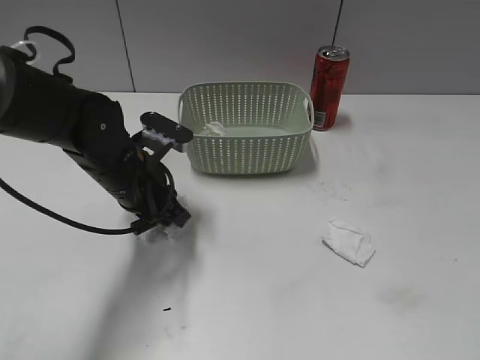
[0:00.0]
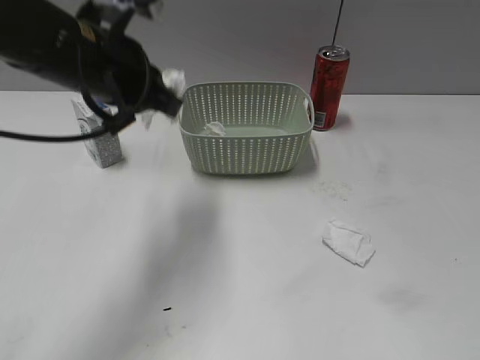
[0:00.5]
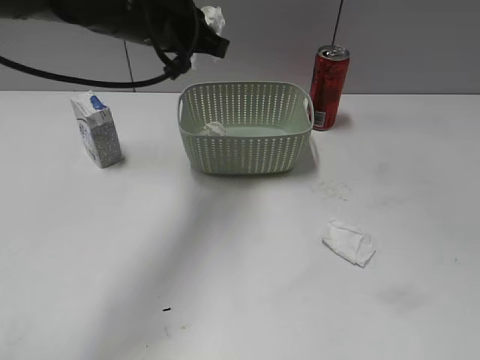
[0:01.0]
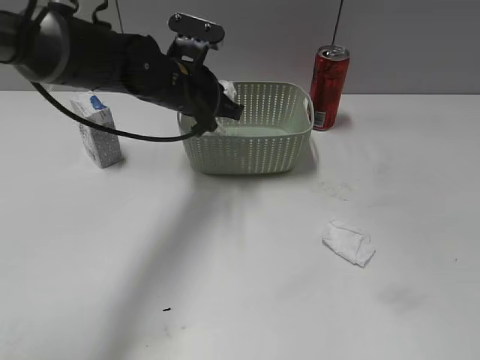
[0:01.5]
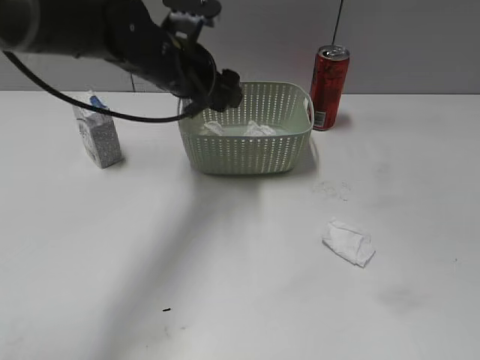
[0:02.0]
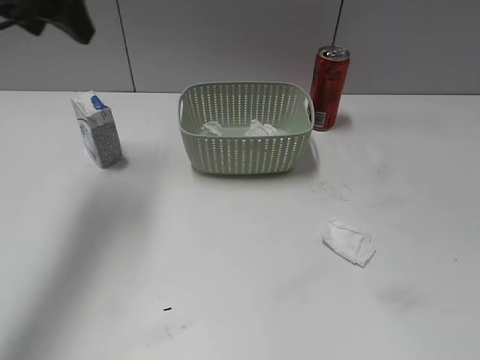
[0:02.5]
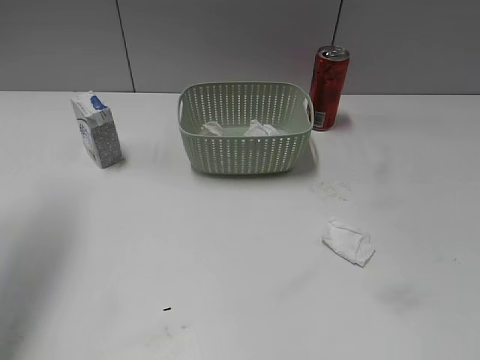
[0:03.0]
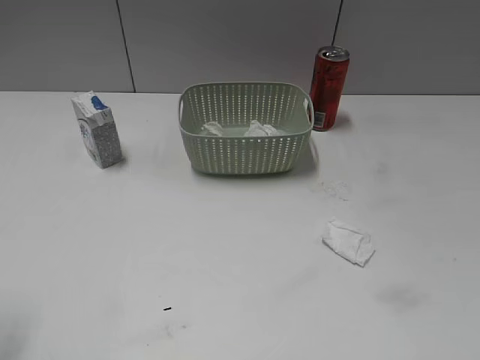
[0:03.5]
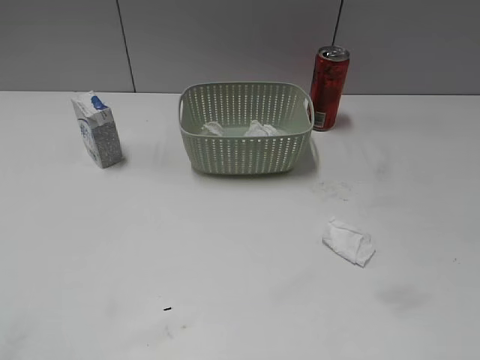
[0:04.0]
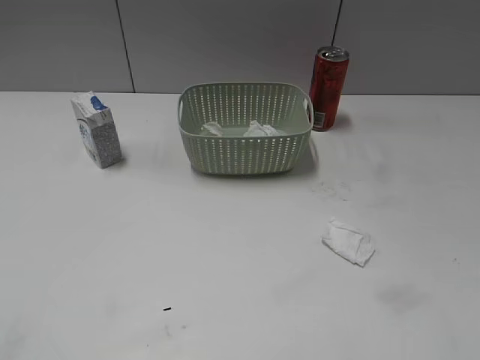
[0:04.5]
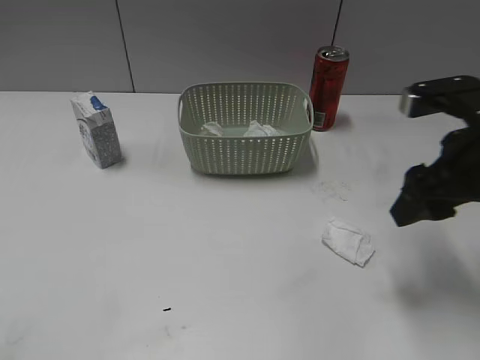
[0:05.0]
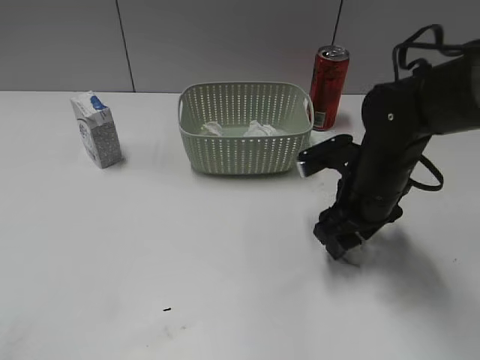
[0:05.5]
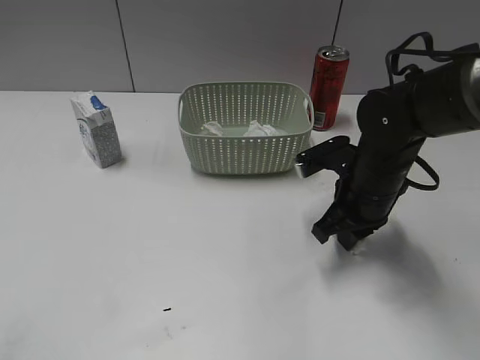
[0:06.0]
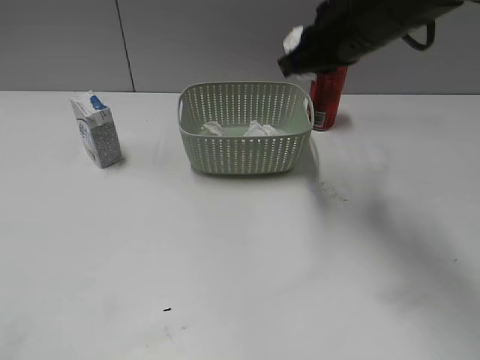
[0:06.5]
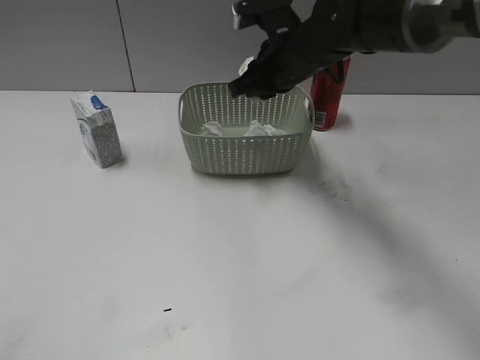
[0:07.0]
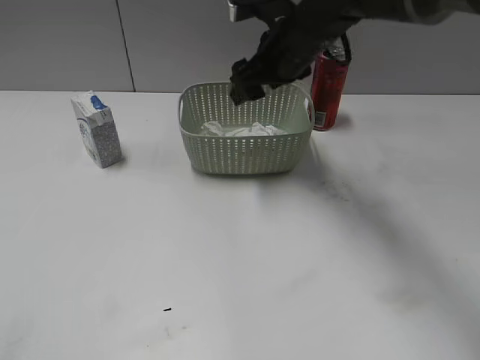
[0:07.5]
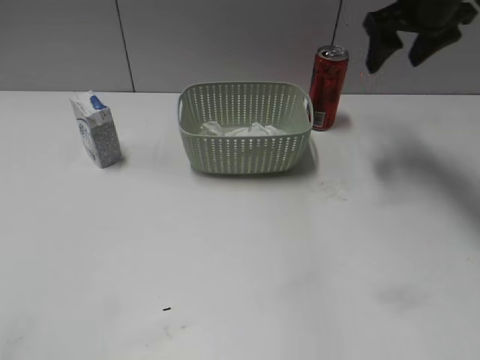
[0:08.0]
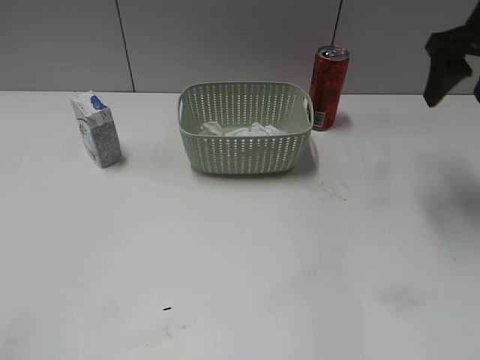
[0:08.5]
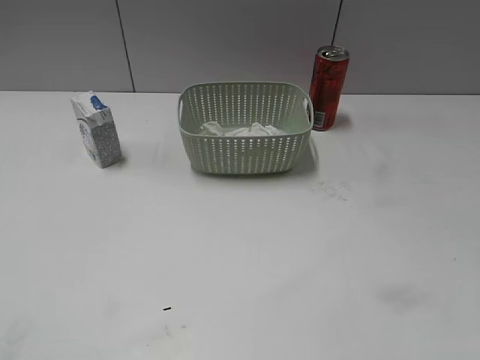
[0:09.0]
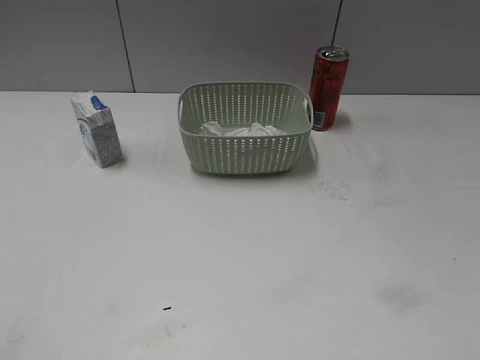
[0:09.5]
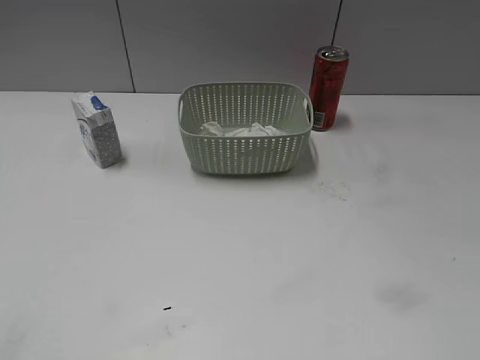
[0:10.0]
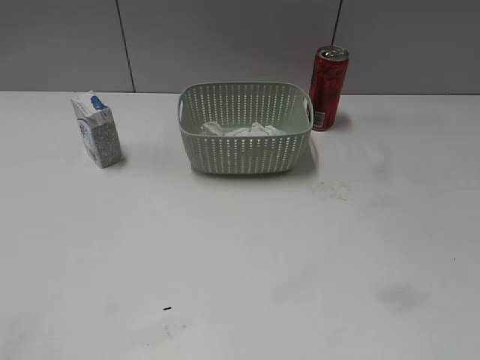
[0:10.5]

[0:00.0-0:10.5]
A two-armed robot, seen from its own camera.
Step, 0:00.5 to 0:02.0: Place the waste paper in the basket with left gripper.
Step, 0:02.5 to 0:06.0: Grasp the waste paper with right gripper.
Step, 0:06.5 to 0:07.5: Place the waste paper in the basket with right gripper.
0:00.0 to 0:02.0: The left gripper is displaced upward and forward by about 10 cm, and opens up.
0:02.0 to 0:04.0: The left gripper goes about 40 cm backward and to the left.
0:04.0 to 0:06.5: The right gripper heads forward and to the left, covering approximately 40 cm, and closes.
0:06.5 to 0:08.5: The right gripper heads to the right, covering roughly 15 cm, and opens.
0:08.5 to 0:10.5: The right gripper travels backward by some 40 cm.

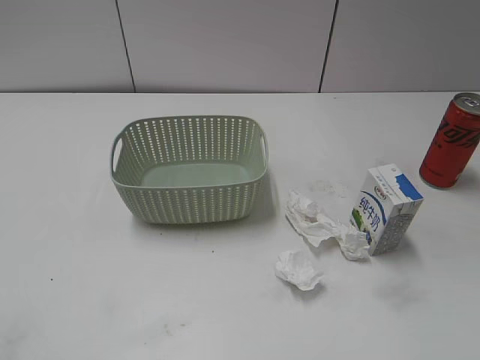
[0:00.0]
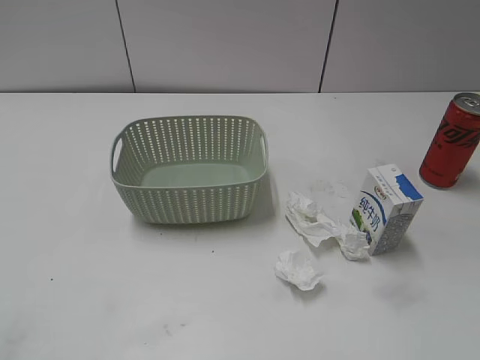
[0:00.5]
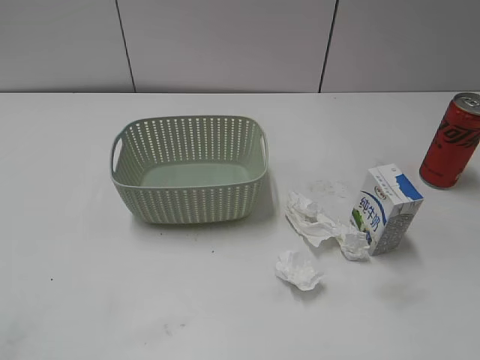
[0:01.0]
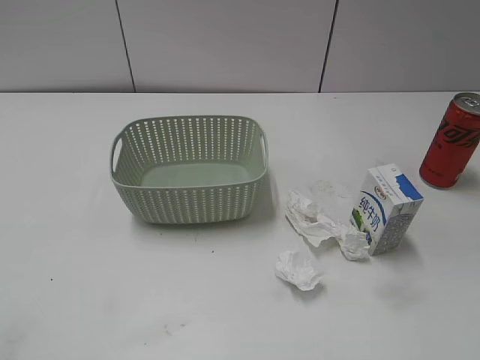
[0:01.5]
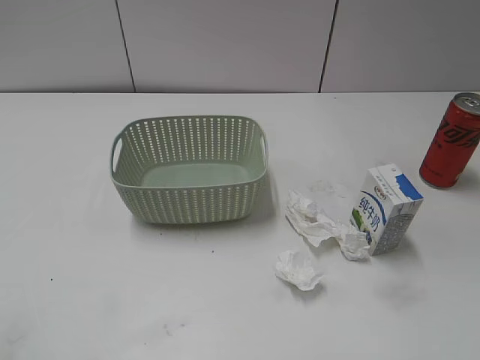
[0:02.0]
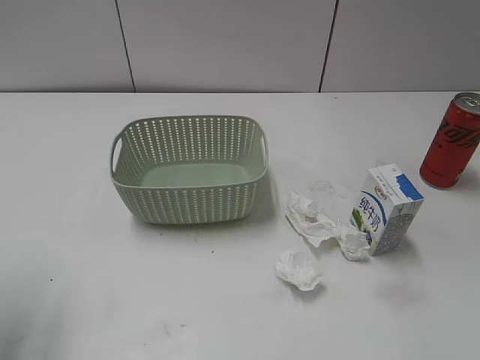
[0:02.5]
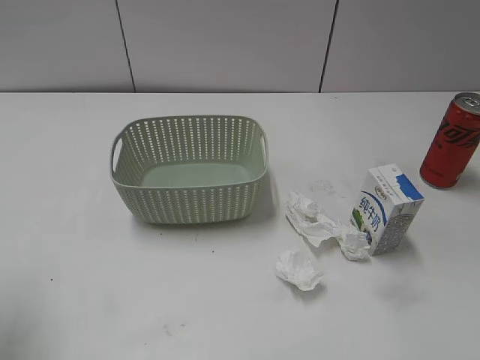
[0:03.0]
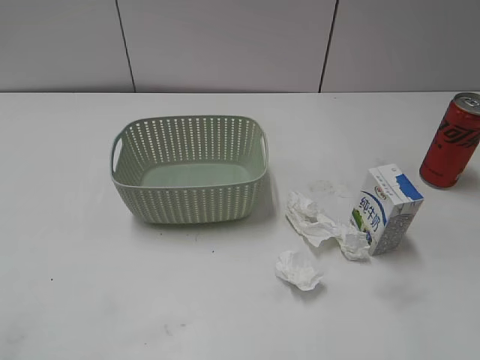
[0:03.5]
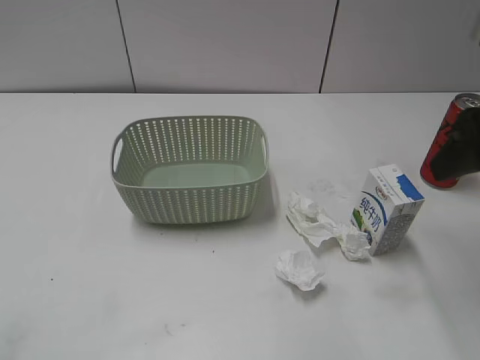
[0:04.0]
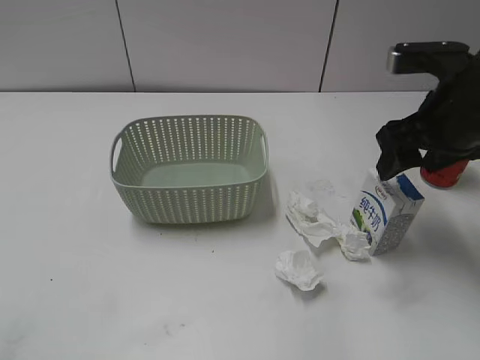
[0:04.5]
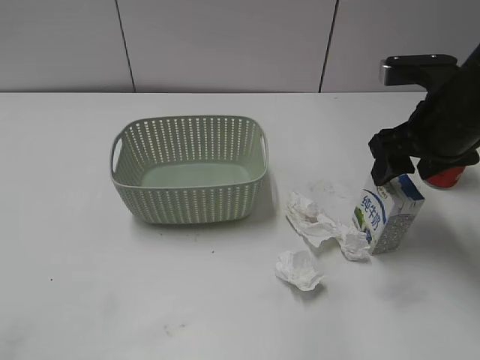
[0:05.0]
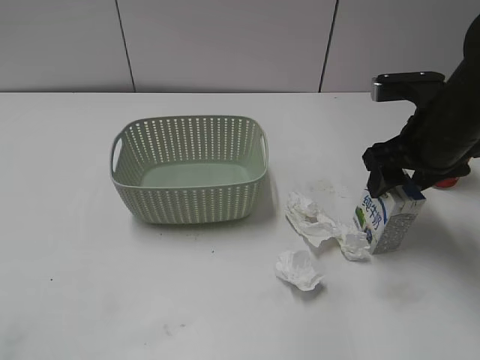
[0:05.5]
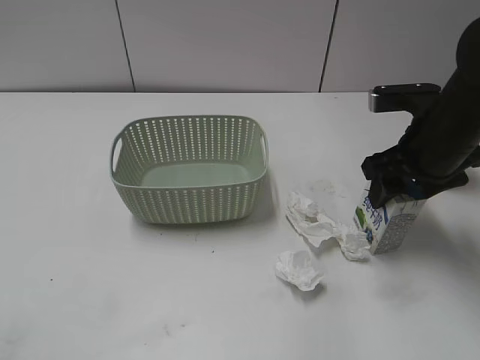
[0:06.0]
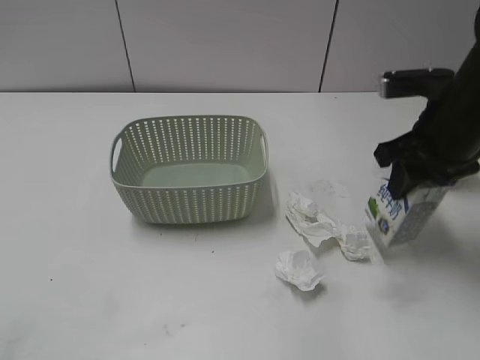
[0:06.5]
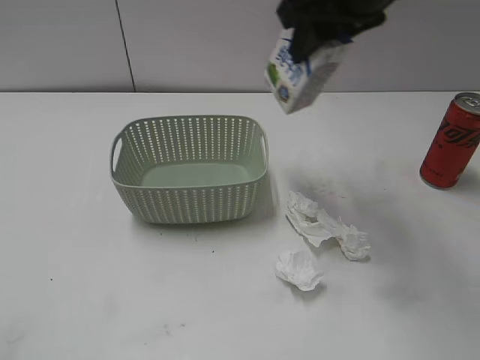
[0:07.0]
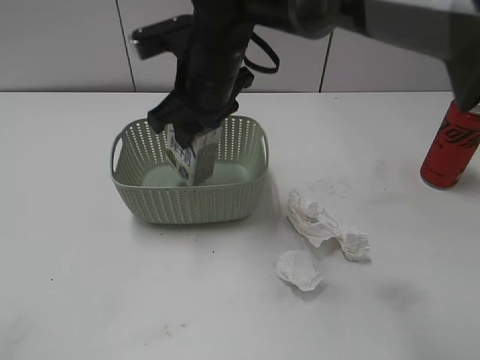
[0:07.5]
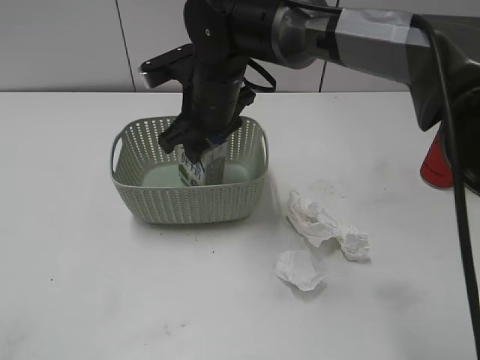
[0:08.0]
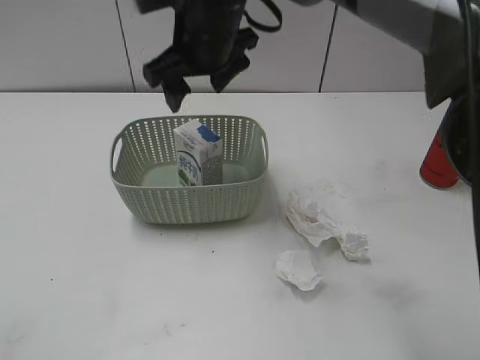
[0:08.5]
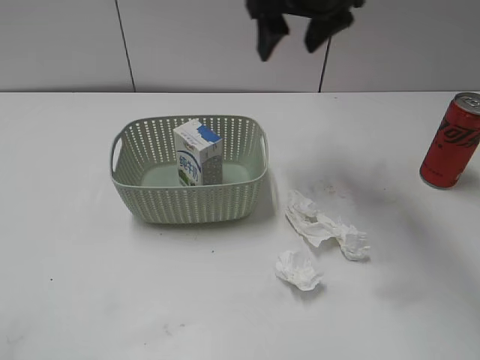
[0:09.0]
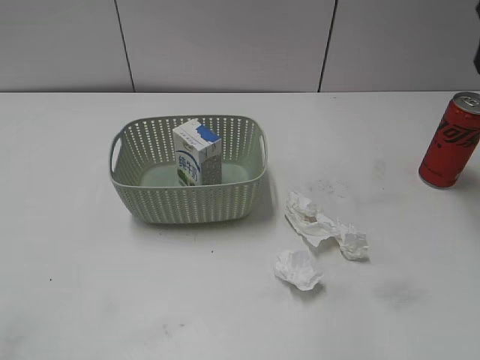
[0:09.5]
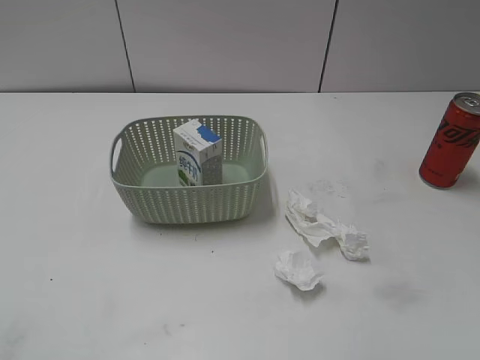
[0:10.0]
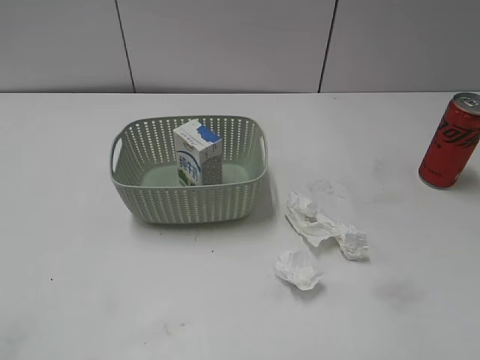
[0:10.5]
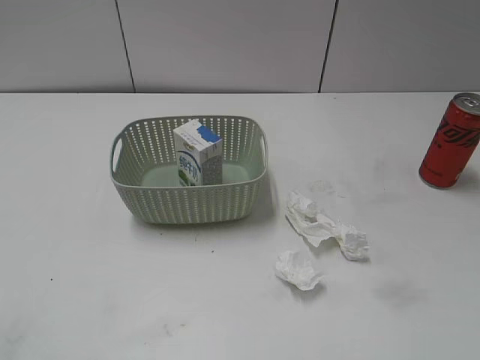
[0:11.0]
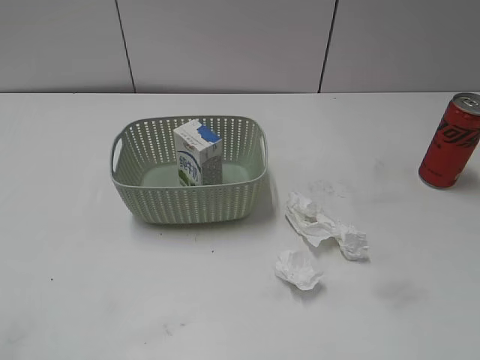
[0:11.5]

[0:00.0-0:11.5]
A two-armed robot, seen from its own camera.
Step, 0:04.0 to 0:06.0: Grasp the milk with right gripper.
Step, 0:06.5 to 0:08.5: Place the milk in the basket with right gripper.
0:02.0 to 0:04.0: The right gripper shifts approximately 25 cm forward.
0:04.0 to 0:06.0: The right gripper shifts roughly 15 cm downward and forward.
0:06.0 to 0:07.5: The right gripper heads to the left, covering roughly 25 cm, and closes up.
0:07.5 to 0:09.5: The right gripper heads to the right, covering roughly 30 cm, and opens its fingers.

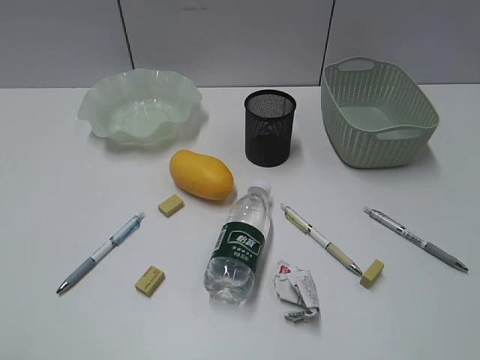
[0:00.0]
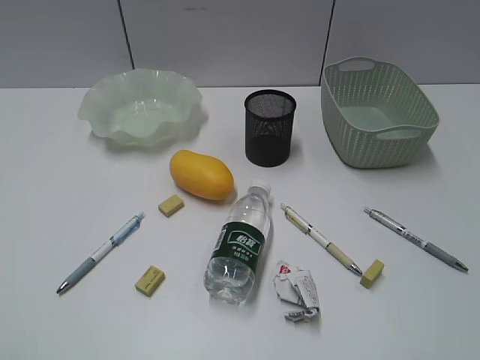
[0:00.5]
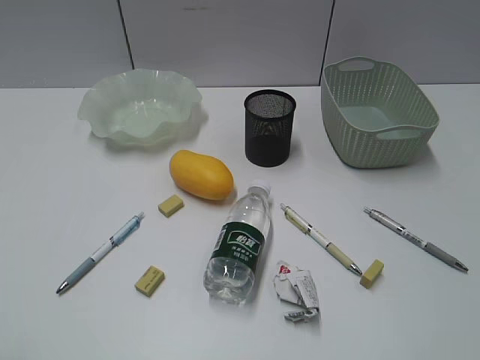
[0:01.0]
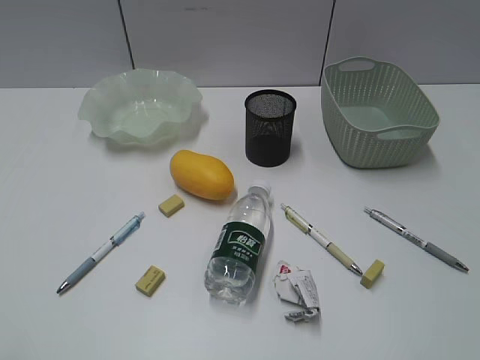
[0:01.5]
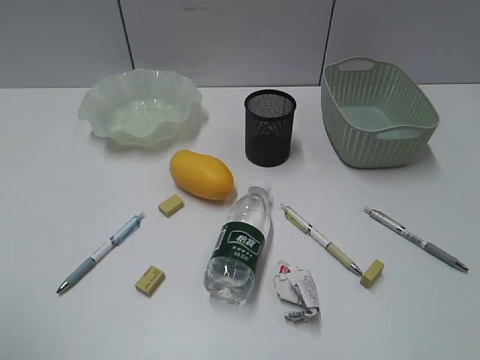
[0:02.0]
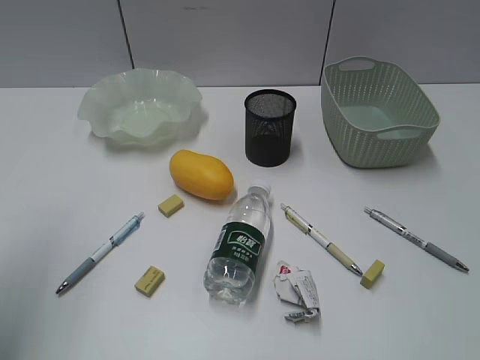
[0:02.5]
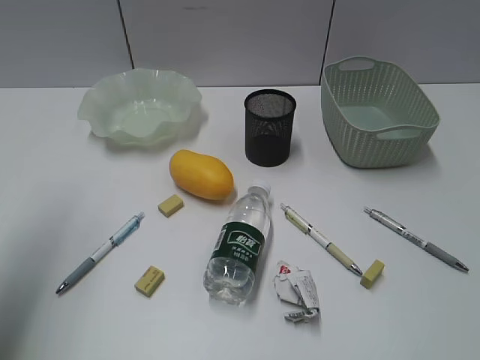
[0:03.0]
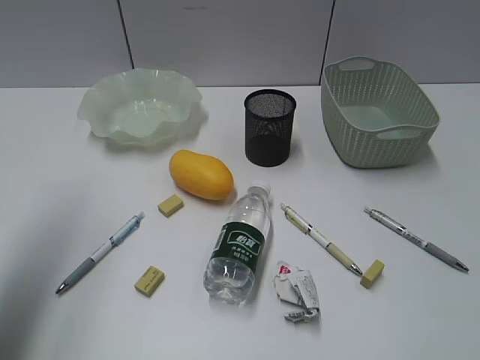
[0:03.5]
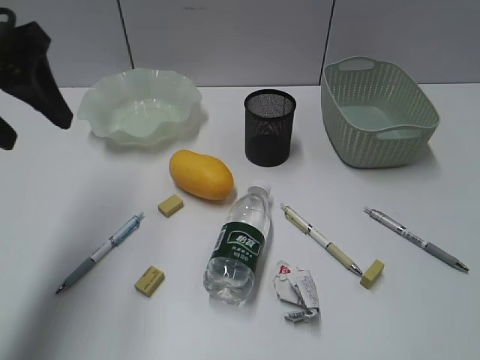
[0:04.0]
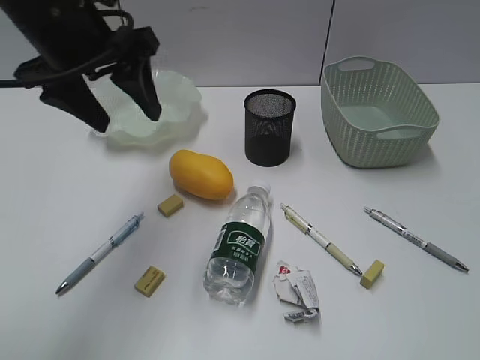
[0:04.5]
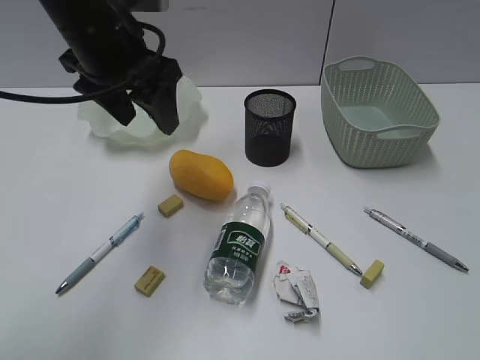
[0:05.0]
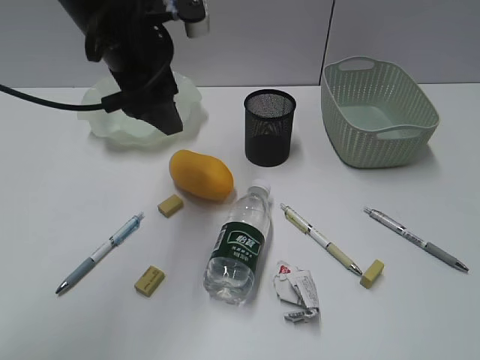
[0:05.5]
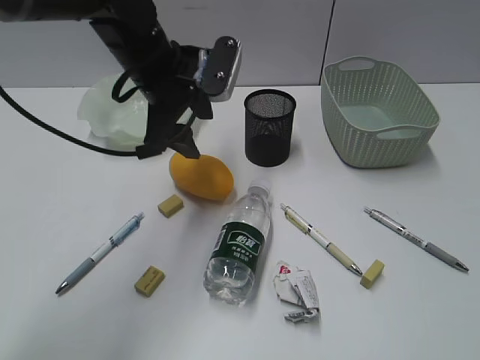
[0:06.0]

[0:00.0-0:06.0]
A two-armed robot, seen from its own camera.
0:02.0 to 0:04.0: The left gripper travels forward by approximately 25 cm.
0:04.0 to 0:06.0: The left gripper shifts about 20 cm to the right, forward and downward.
